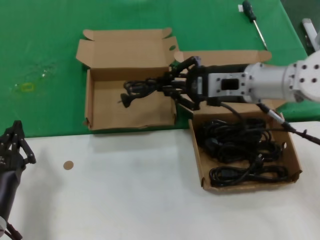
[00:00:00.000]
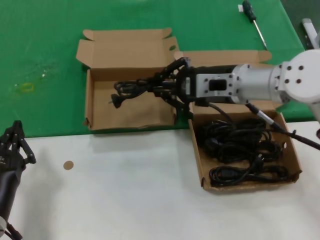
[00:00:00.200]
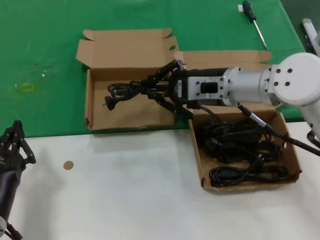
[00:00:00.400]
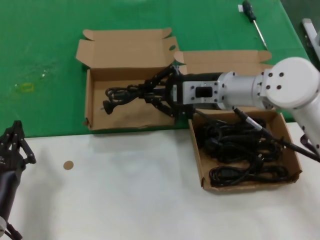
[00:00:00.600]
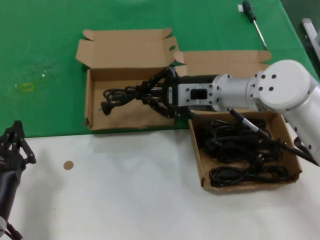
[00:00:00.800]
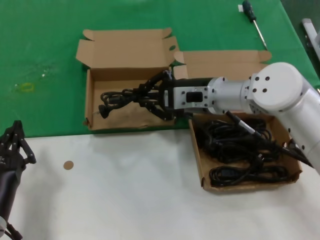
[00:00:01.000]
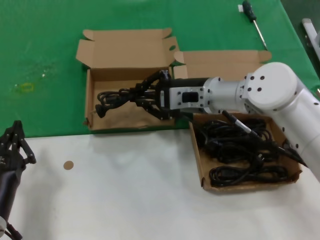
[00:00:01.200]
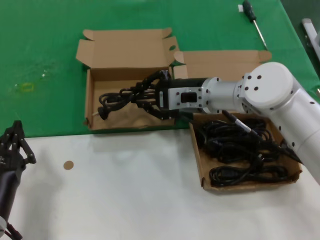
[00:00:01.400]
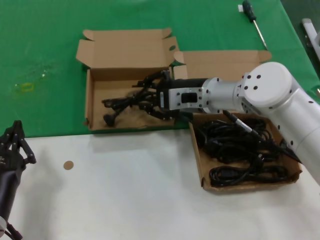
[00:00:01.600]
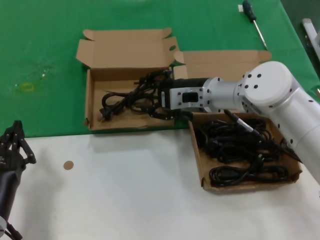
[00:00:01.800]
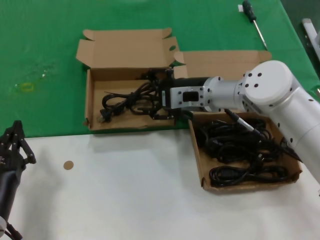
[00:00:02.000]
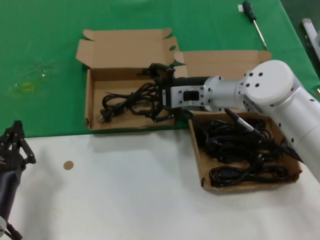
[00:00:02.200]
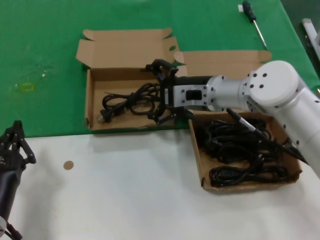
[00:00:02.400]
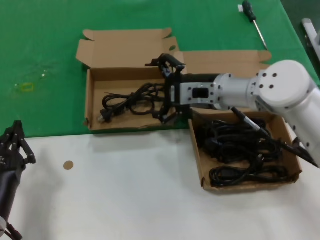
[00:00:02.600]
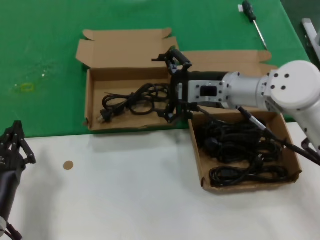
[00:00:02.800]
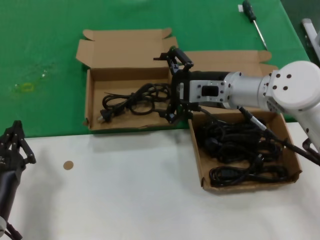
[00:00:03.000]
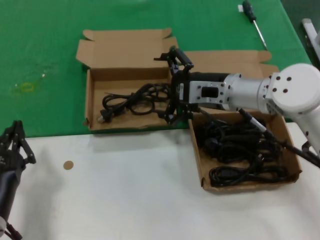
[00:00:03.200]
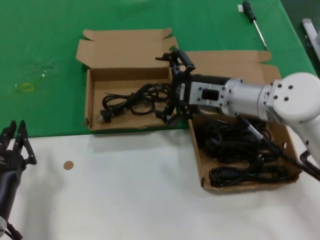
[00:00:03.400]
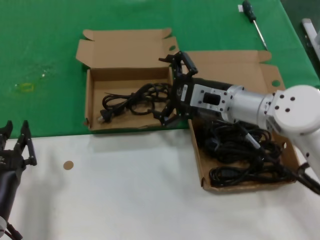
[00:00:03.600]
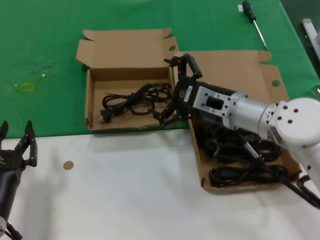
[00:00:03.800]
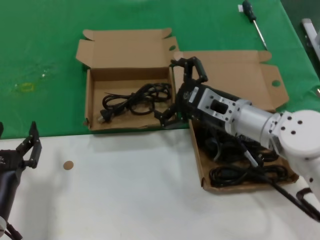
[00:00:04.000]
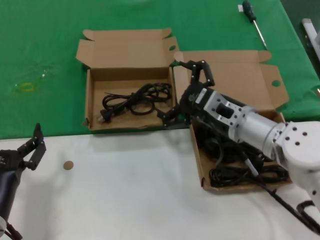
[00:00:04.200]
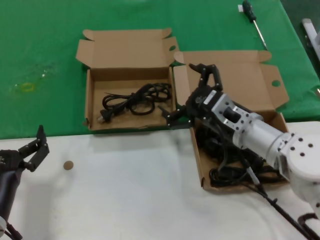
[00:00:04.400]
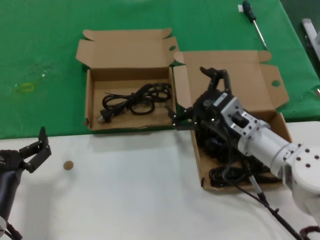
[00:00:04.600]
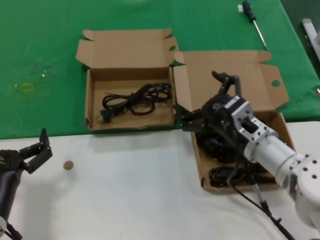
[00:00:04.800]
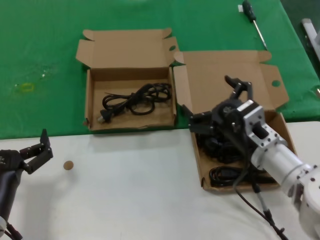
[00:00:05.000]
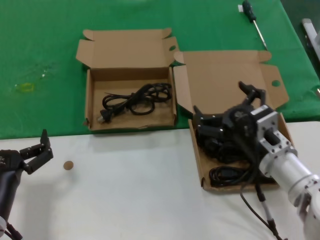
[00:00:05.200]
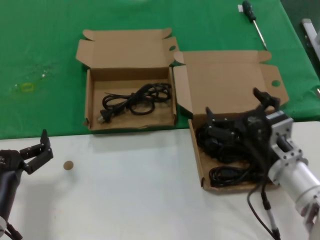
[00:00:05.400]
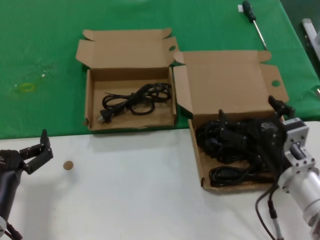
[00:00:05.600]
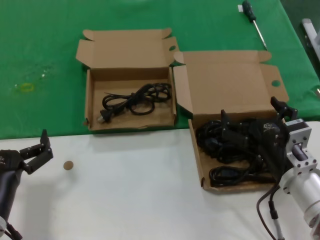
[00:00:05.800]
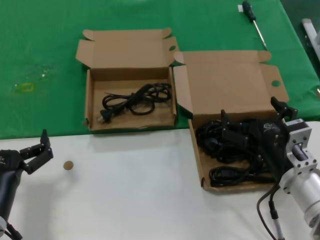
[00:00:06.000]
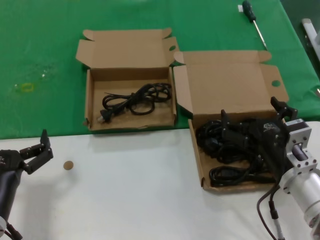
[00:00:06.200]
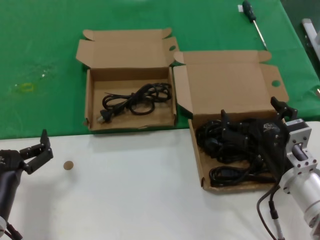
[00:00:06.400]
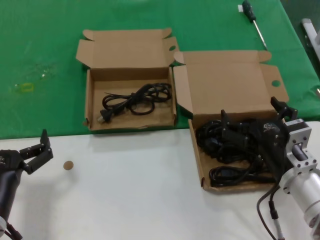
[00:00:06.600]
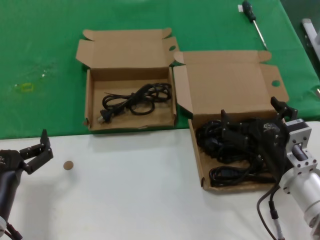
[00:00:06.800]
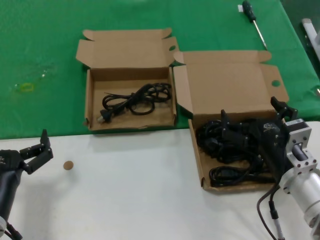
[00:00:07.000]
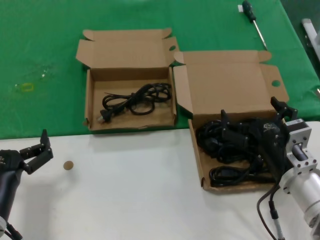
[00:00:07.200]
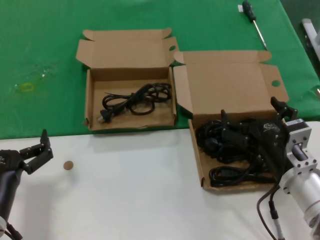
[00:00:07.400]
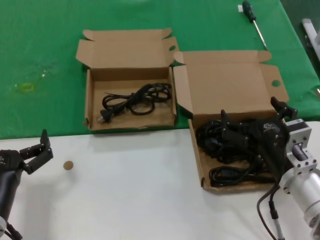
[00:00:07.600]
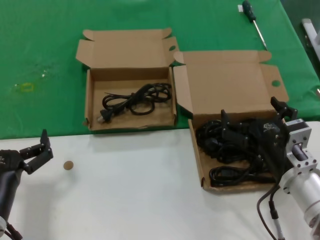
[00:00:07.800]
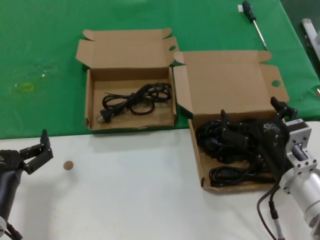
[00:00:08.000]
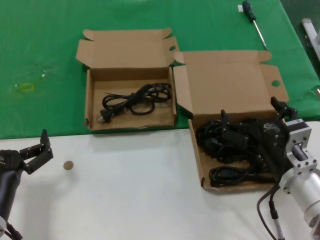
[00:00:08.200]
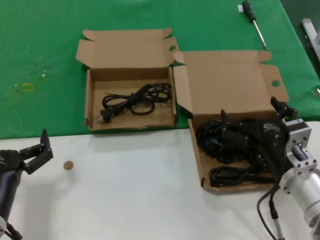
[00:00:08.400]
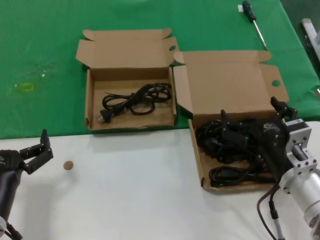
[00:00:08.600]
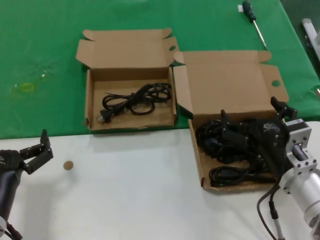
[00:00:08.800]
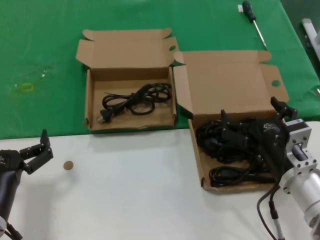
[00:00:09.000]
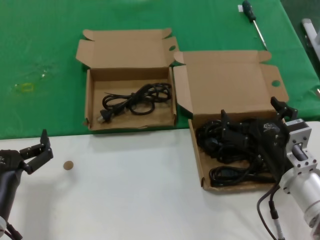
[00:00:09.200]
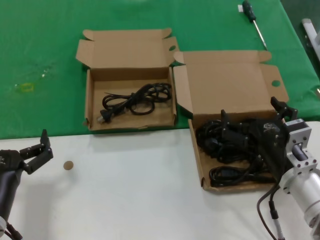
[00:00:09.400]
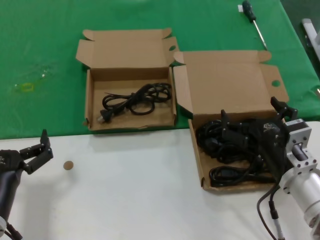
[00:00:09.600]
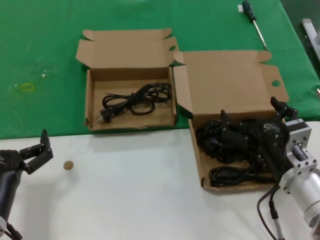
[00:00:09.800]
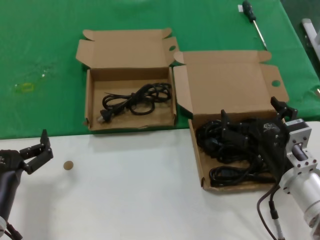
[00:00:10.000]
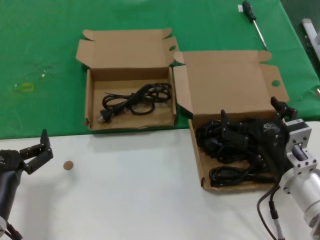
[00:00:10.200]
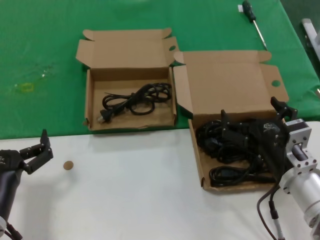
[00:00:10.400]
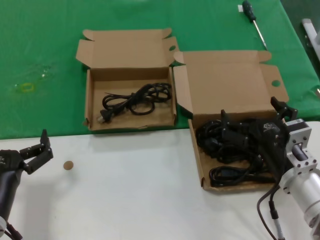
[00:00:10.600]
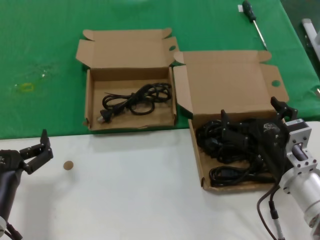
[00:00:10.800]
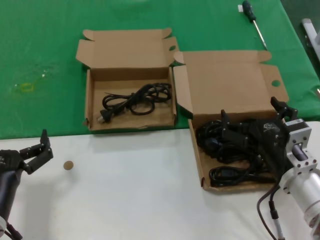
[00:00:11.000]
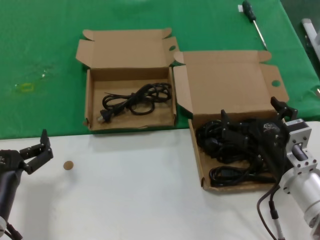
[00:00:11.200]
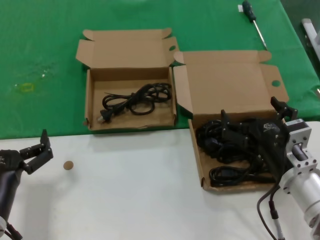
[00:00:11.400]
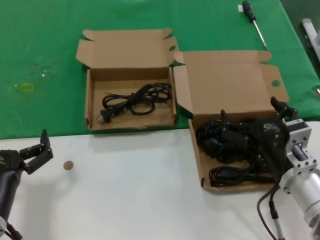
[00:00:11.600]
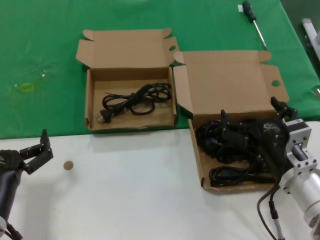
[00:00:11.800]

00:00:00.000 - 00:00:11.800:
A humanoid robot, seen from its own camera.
Task of the whole recording: take the parts from the box containing them and put them into an empty box.
Step, 00:00:00.000 - 00:00:02.000: Place the data cable in the another box.
00:00:00.000 - 00:00:01.400: The right hand moves to the left, about 5 cm.
00:00:01.400 - 00:00:03.000: The hands stay close to where they were, moving slightly.
00:00:03.000 - 00:00:04.400: The right hand goes roughly 10 cm downward and backward.
00:00:04.400 - 00:00:06.000: The right hand shifts approximately 10 cm backward and downward.
00:00:06.000 - 00:00:11.800: Both hands stay about where they are.

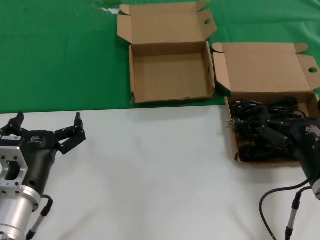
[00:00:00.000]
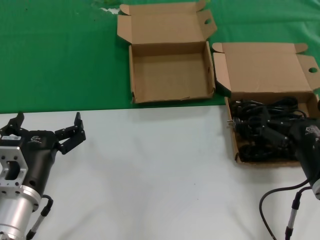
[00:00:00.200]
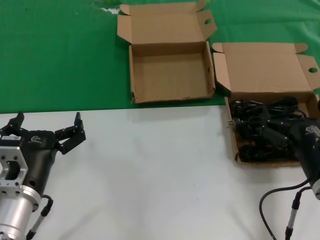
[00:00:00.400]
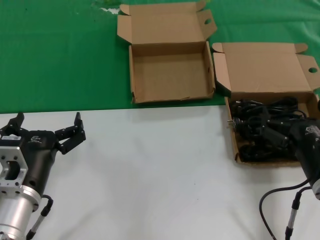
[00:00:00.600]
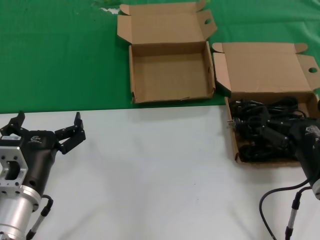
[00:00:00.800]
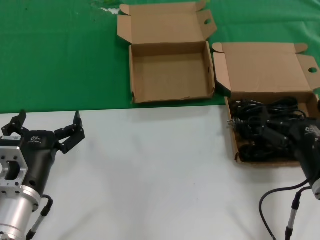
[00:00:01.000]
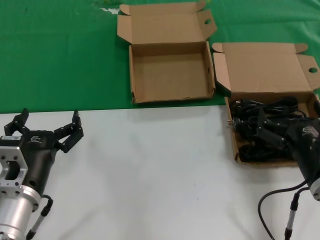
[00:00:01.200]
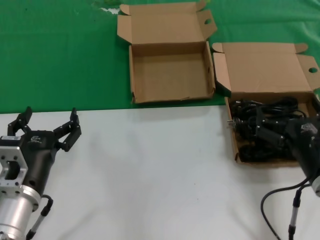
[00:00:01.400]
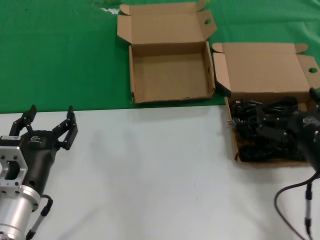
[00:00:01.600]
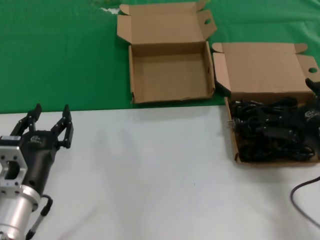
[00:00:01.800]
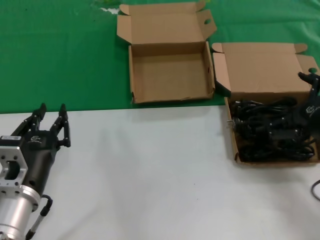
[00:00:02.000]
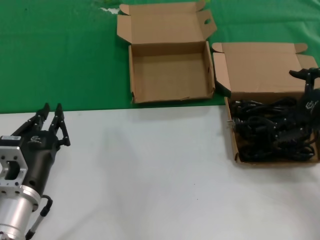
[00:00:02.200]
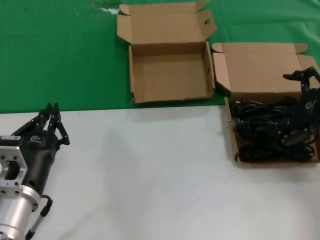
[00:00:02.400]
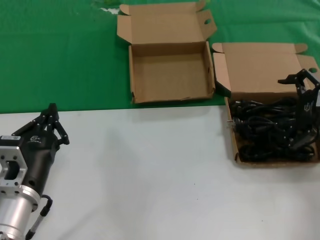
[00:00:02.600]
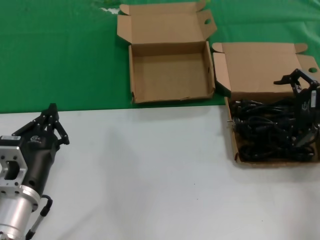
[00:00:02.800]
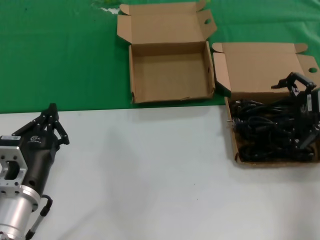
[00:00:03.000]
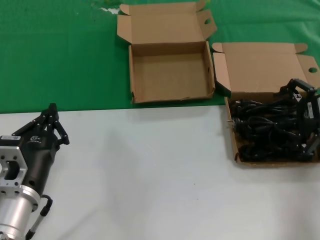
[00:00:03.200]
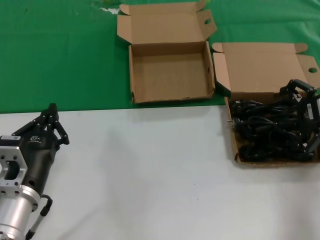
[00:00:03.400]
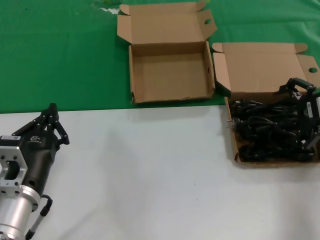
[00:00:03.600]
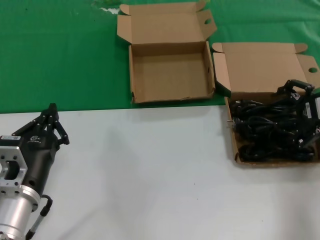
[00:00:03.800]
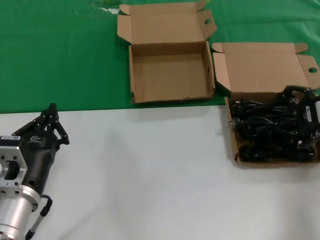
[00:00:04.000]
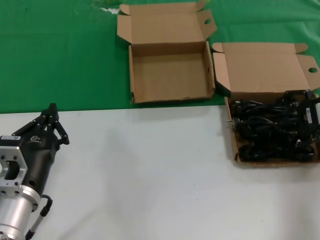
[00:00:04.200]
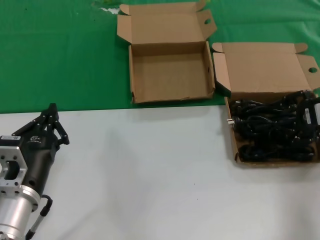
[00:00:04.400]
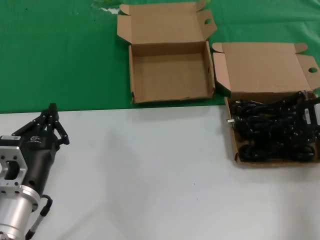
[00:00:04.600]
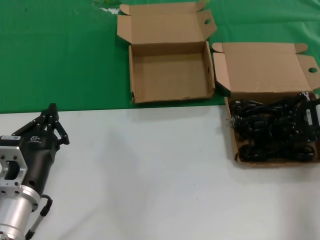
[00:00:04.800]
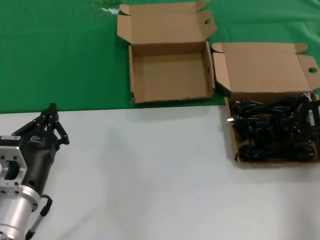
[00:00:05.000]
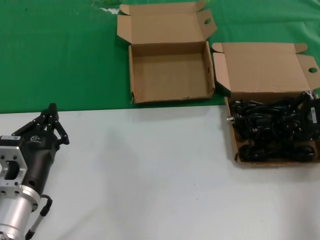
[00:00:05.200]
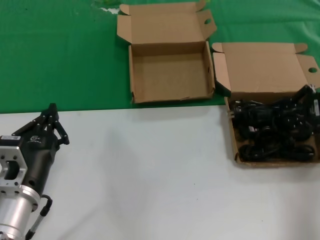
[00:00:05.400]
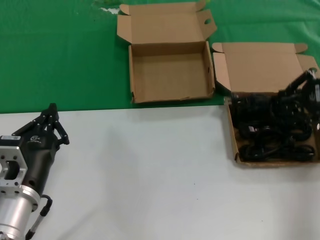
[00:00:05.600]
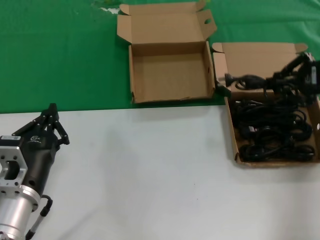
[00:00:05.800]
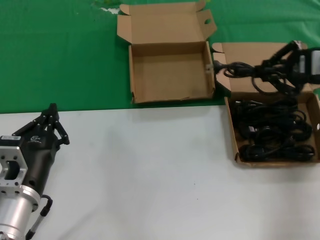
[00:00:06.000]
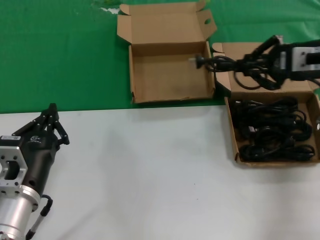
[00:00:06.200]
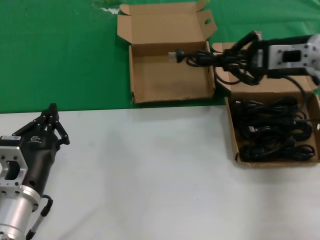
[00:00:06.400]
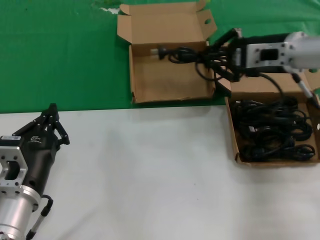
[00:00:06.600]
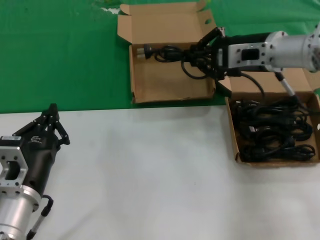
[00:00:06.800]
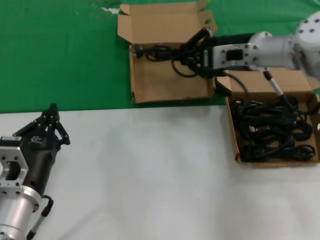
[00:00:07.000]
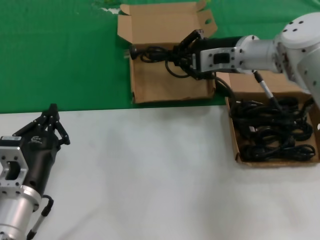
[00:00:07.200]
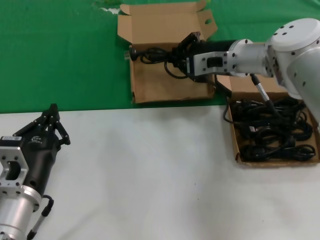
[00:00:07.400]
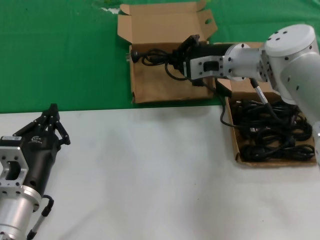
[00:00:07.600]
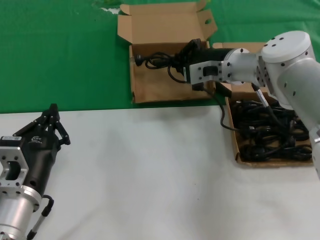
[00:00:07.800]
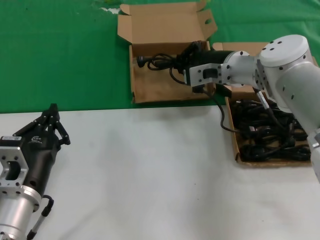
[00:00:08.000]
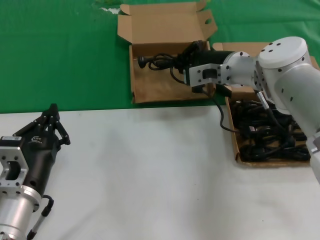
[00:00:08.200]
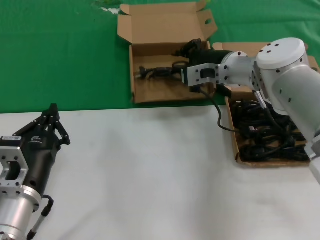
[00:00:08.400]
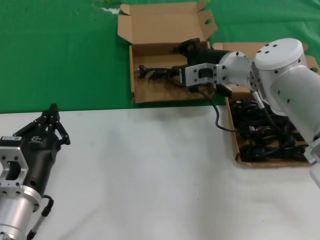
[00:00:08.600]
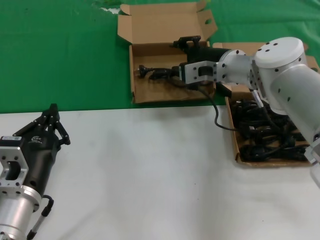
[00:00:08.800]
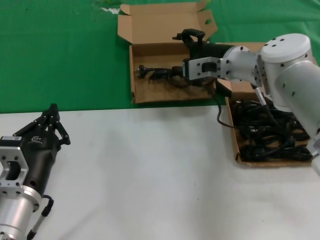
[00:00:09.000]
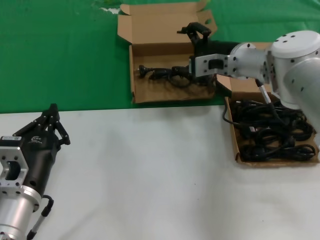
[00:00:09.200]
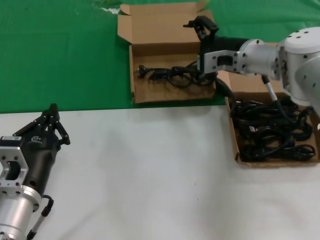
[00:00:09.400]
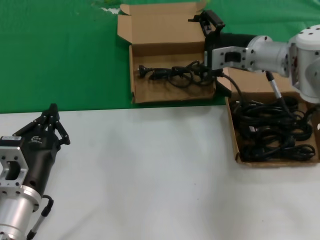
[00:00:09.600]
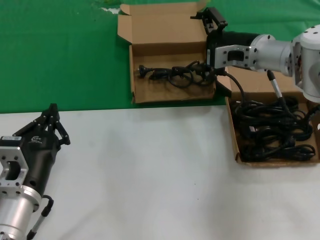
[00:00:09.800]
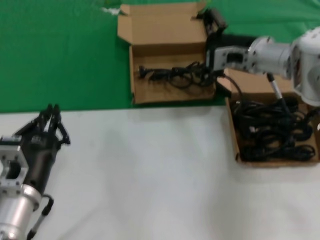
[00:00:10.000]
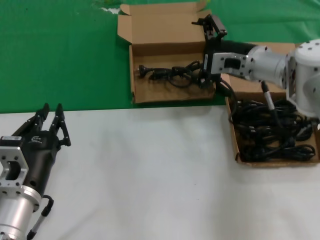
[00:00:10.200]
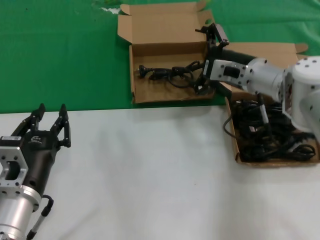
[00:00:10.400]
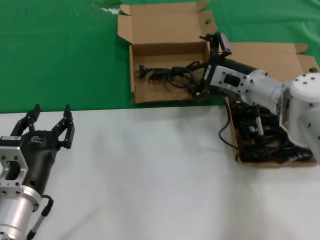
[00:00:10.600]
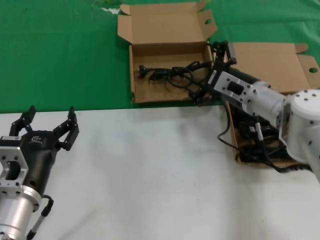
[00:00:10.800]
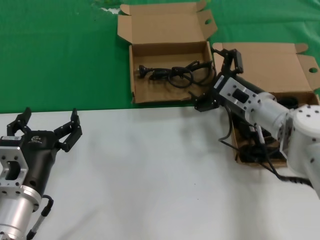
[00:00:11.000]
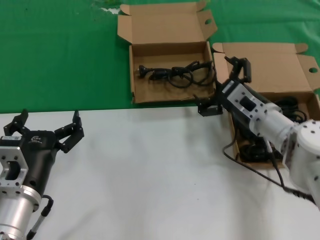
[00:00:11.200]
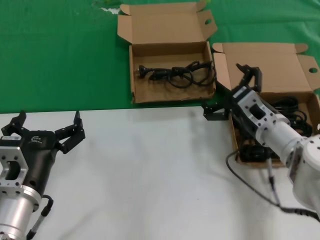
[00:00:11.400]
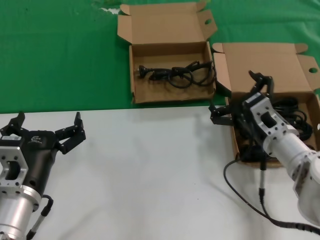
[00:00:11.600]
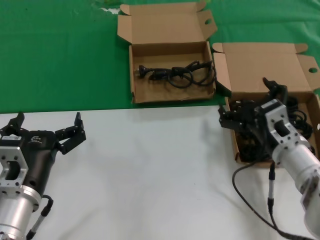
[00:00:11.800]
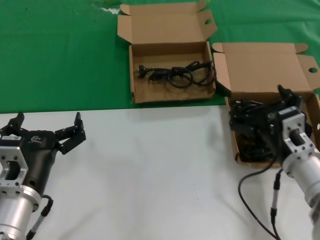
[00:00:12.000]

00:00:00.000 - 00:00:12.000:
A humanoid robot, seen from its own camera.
Task of the whole recording: take the parts from the box containing them and put them into an empty box.
Step, 00:00:00.000 - 00:00:05.000: Grasp the data cable.
Step, 00:00:05.200 - 00:00:08.400: Place the data cable in the another box.
00:00:00.000 - 00:00:01.600: The hands make only small movements.
00:00:01.600 - 00:00:03.000: The right hand is displaced forward, upward and to the right by approximately 20 cm.
00:00:03.000 - 00:00:04.400: The hands move only a little.
00:00:04.400 - 00:00:06.000: The right hand goes approximately 10 cm upward.
00:00:06.000 - 00:00:07.600: The right hand heads to the left and forward, covering some 20 cm.
00:00:07.600 - 00:00:09.000: The hands stay close to where they were, moving slightly.
00:00:09.000 - 00:00:10.400: The right hand moves some 5 cm.
00:00:10.400 - 00:00:12.000: The right hand goes roughly 20 cm backward and downward.
